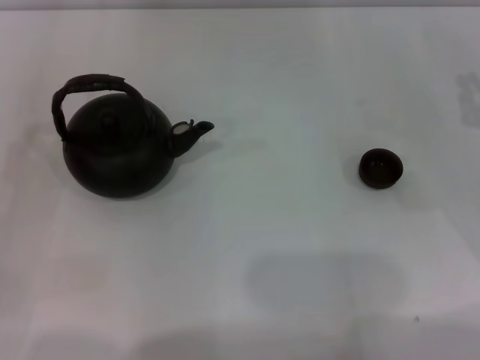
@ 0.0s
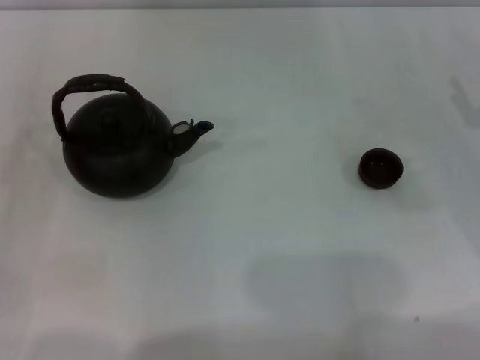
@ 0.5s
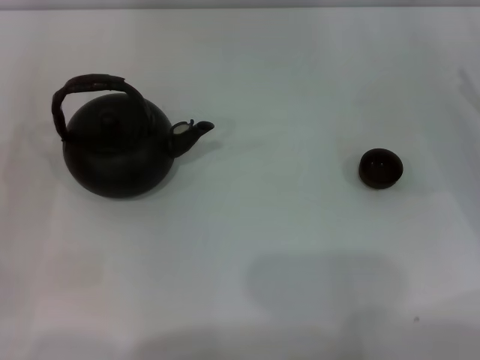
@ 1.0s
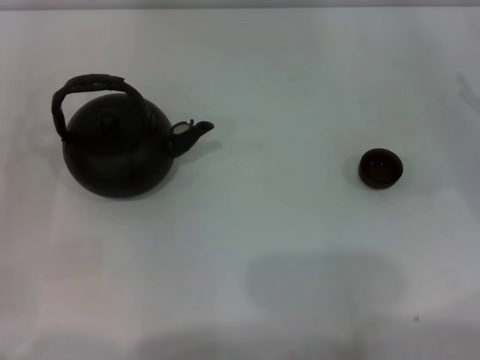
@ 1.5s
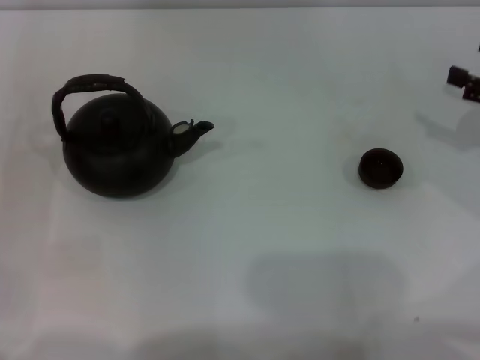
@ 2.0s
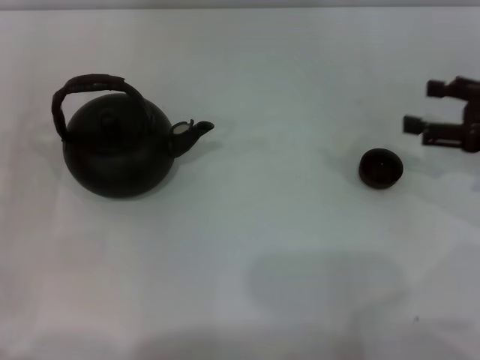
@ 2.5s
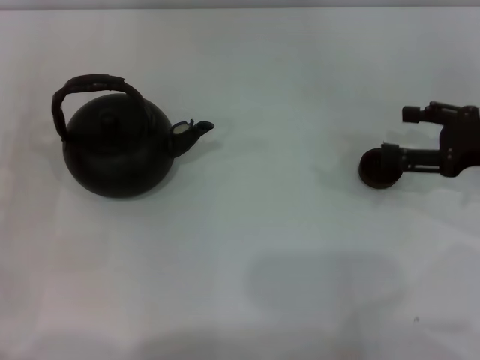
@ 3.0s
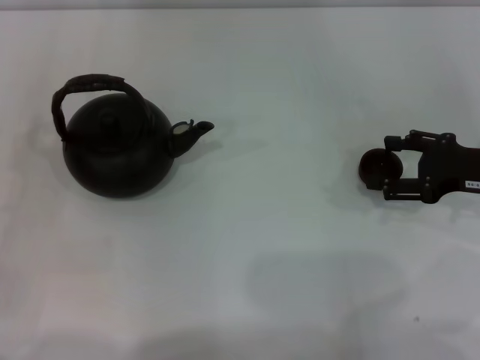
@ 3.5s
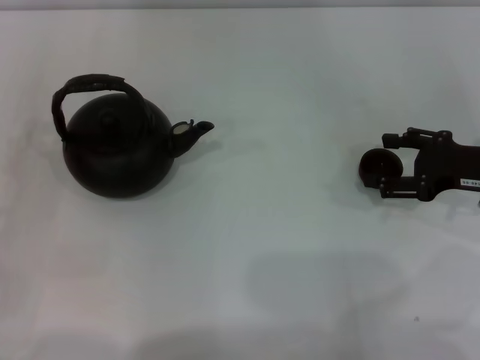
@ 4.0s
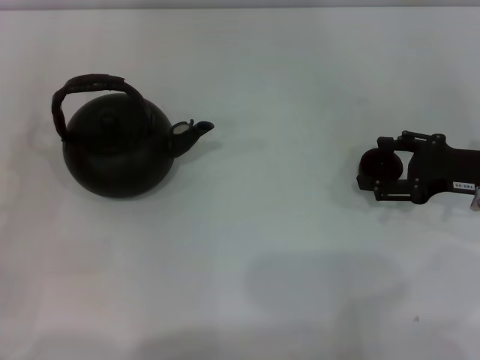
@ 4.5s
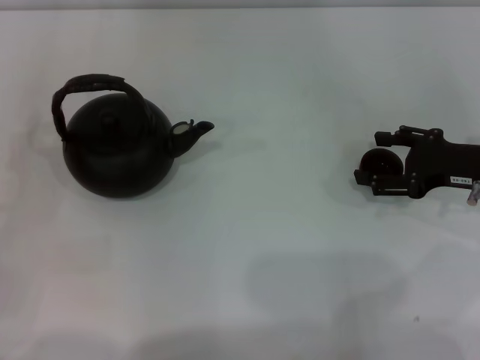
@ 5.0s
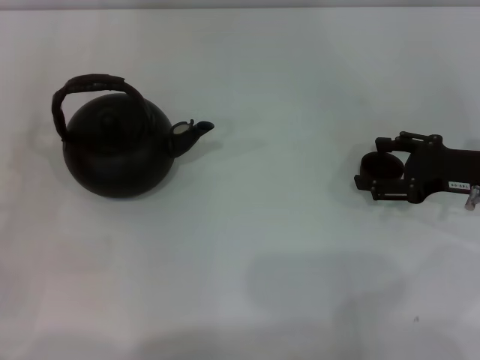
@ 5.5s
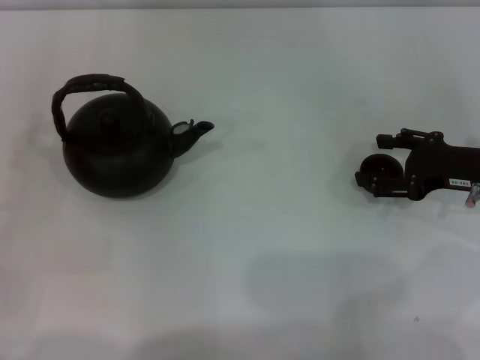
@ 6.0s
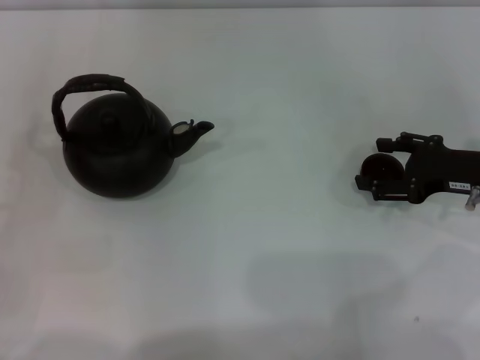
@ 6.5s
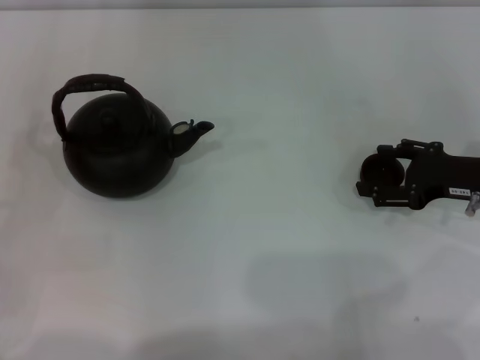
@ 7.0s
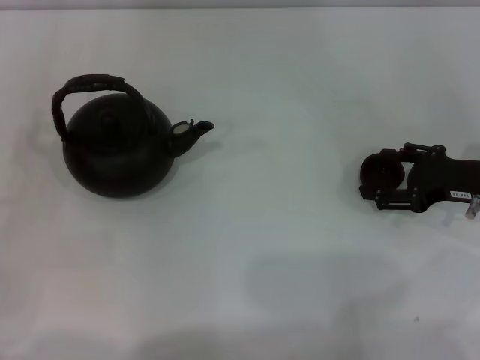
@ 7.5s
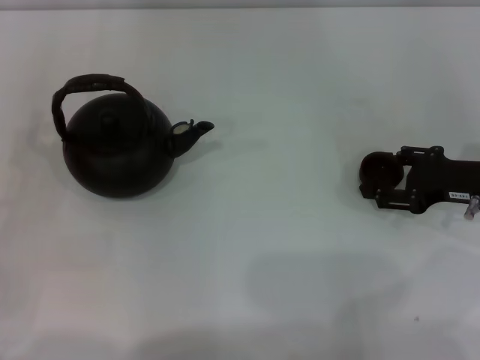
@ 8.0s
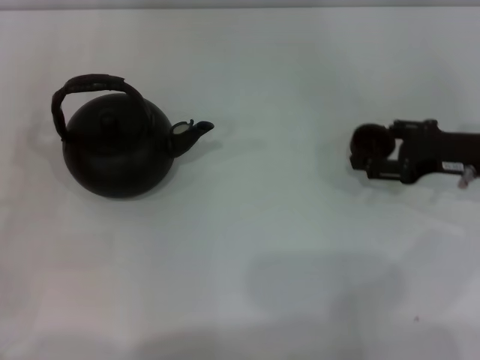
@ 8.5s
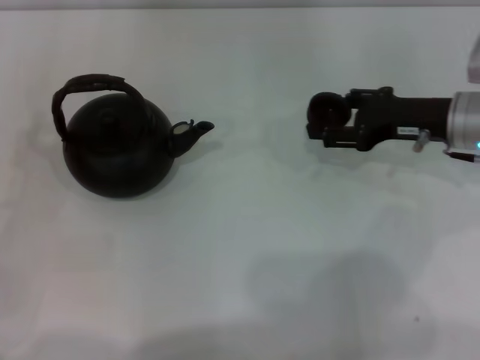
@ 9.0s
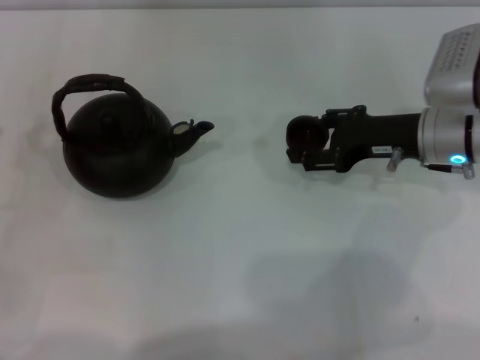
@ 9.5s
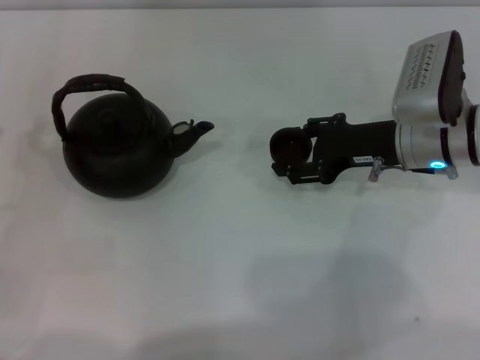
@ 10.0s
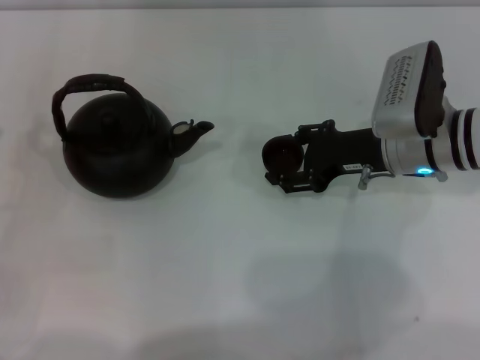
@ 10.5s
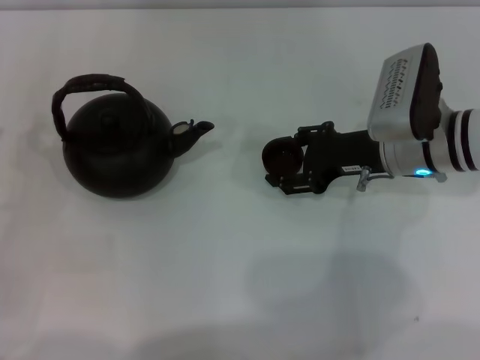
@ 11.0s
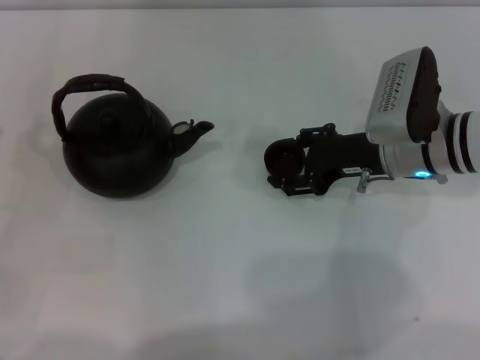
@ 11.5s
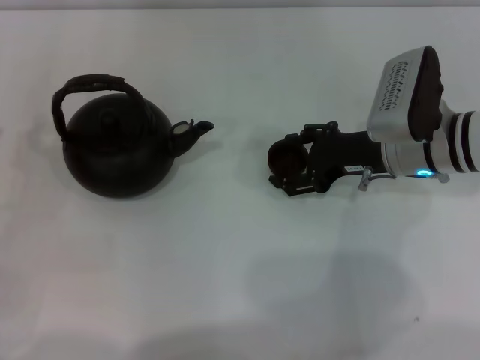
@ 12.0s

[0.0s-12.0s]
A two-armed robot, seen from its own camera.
Task of the whole recording: Grasp the handle of the teapot with one hand and pour tea into the teacup.
Step, 0.0s to 8.0s: Pick up the teacup with the right gripper.
0.0s to 2.0s: The right gripper shifts by about 5 cm, and opens its fingers.
2.0s to 4.0s: The right gripper shifts roughly 5 cm to the left.
4.0s to 6.0s: Neither gripper changes place.
6.0s to 8.0s: Both grippers stay about where they are.
8.0s to 10.0s: The right gripper heads to the left, covering approximately 10 cm.
10.0s to 12.0s: The grippers make only small movements.

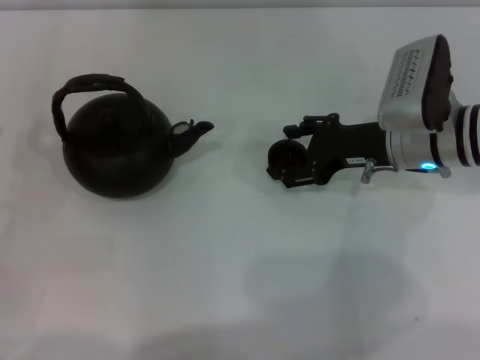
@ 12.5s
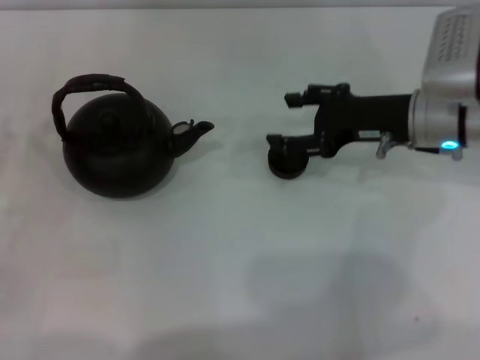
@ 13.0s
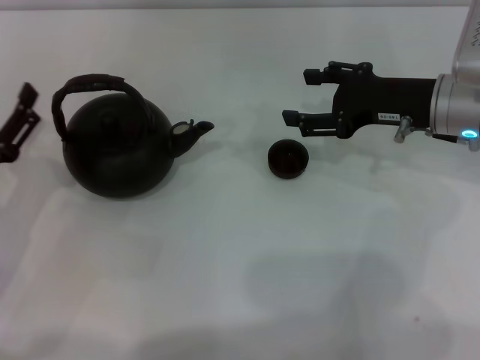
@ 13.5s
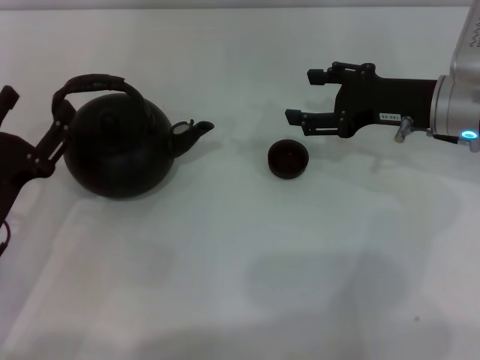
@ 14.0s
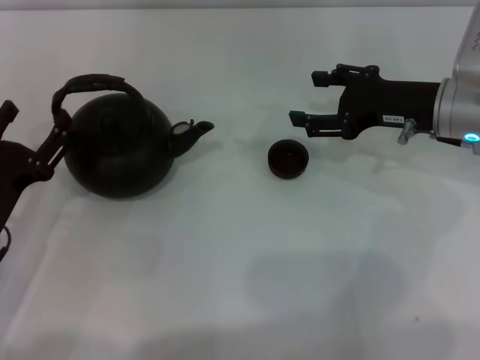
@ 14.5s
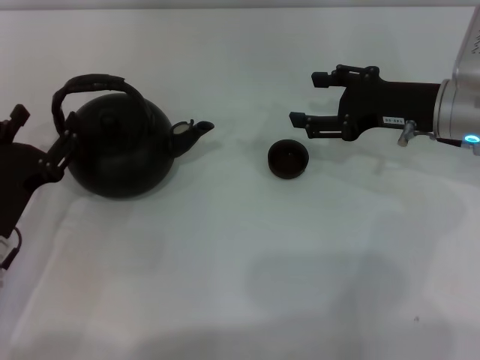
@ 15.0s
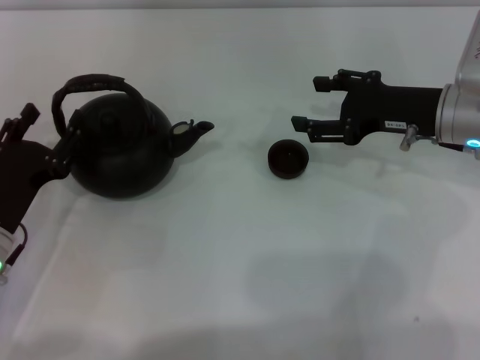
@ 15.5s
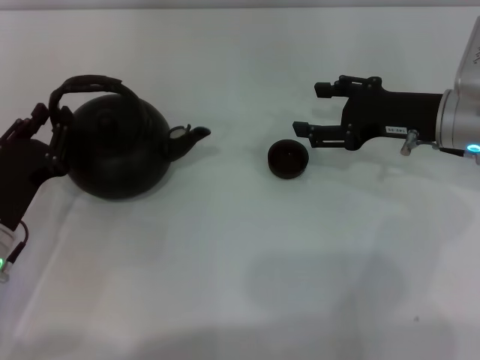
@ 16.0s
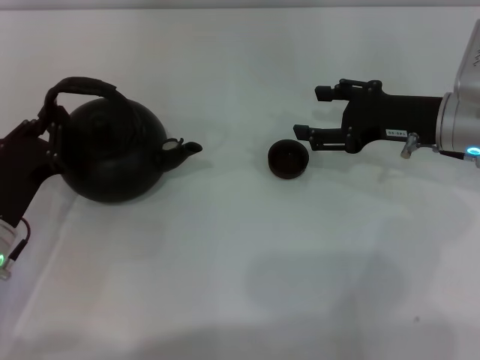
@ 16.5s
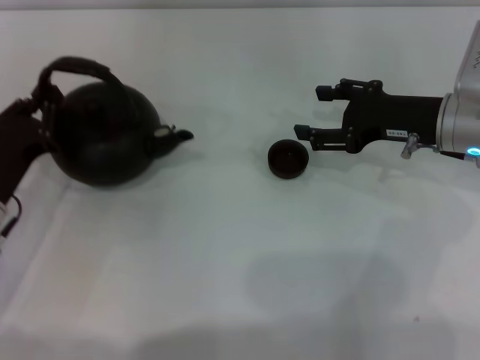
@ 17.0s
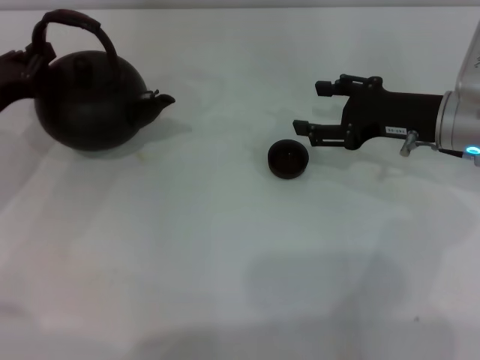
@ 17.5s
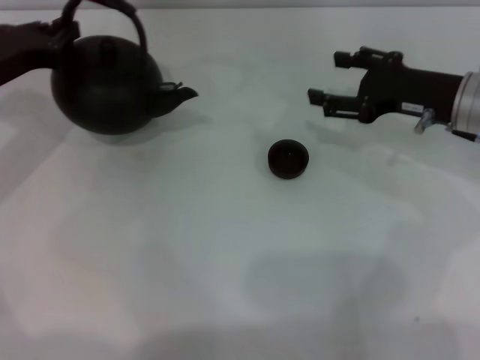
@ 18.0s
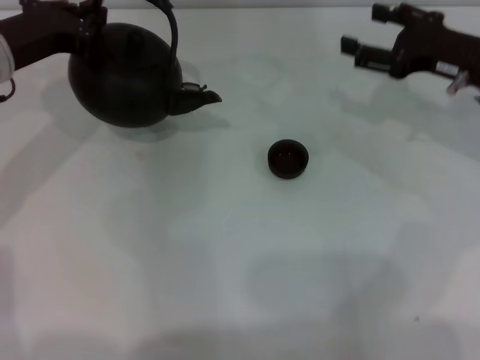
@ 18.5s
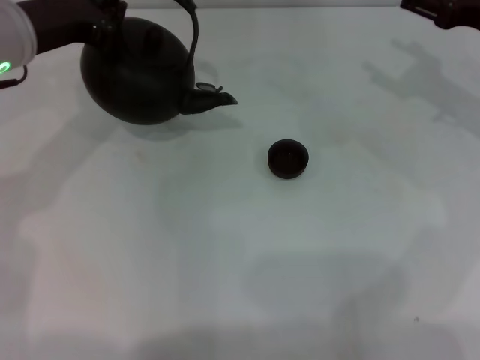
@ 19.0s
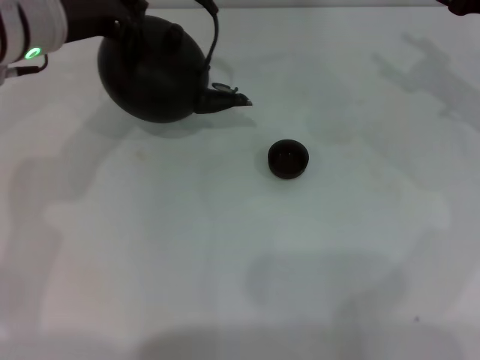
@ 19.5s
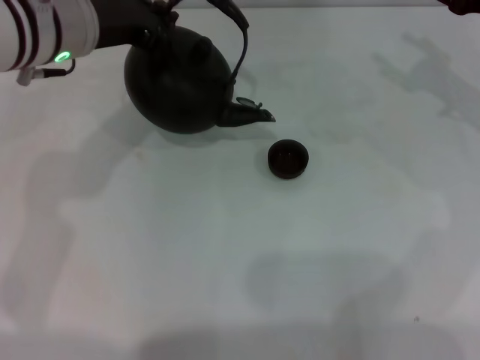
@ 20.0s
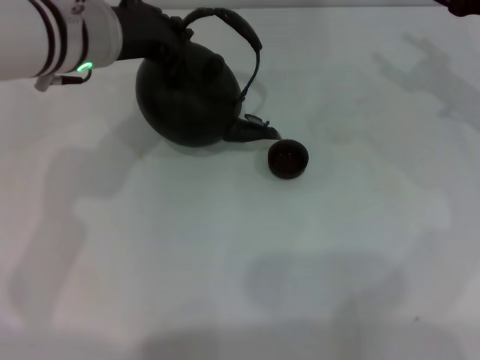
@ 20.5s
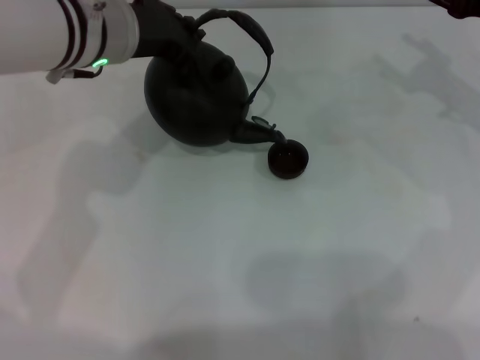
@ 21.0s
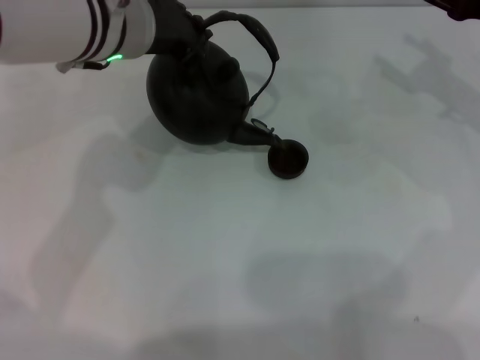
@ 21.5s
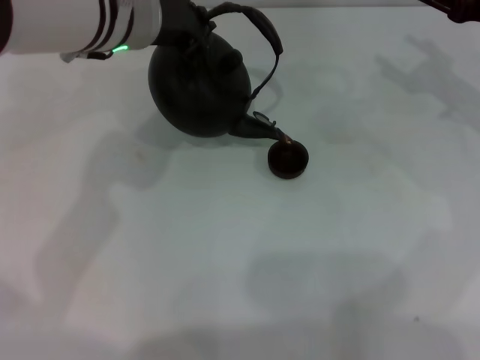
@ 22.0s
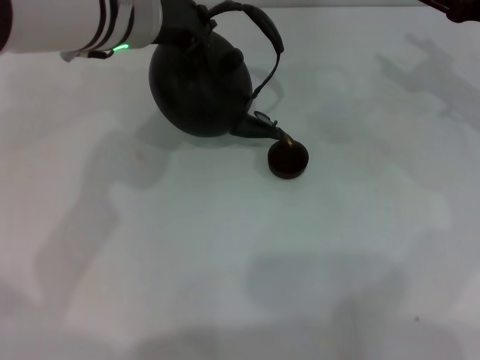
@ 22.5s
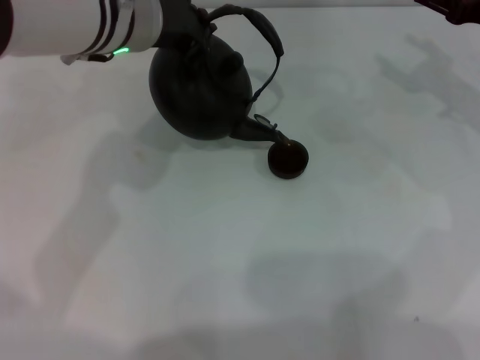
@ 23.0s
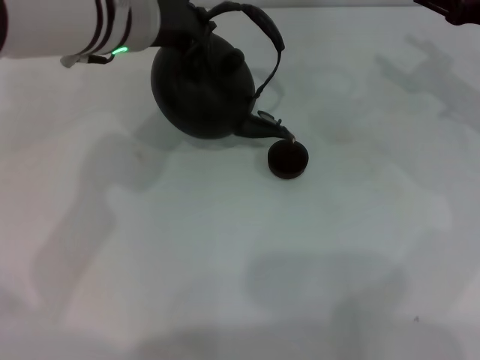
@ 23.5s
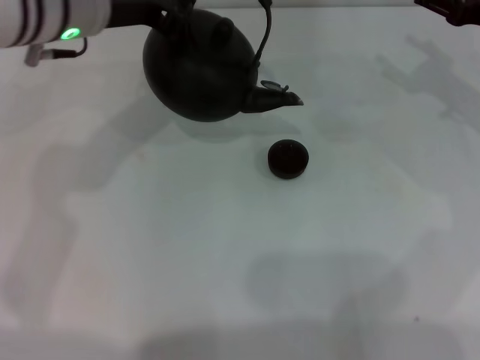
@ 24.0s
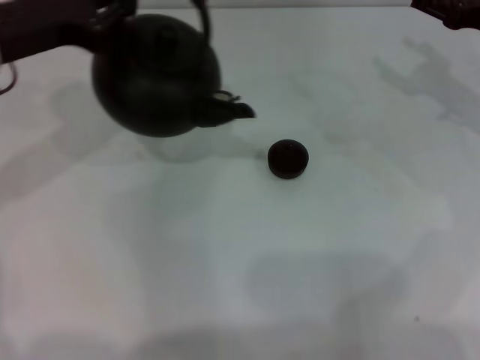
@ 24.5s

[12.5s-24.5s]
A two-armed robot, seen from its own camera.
Task of the whole recording: Grasp the handle of the teapot with one hand and pour tea into the teacup.
Step, 13.0s to 17.0s: Pick up the teapot with the left gripper.
Step, 17.5s to 23.5s: Pour tea into the teacup with the left gripper.
12.5s to 14.5s: The left gripper shifts some 10 cm to the right.
14.5s to 16.5s: The left gripper closes its fingers.
16.5s to 18.5s: The left gripper shifts about 20 cm upward and forward. Meanwhile the right gripper changes place by roughly 5 cm.
18.5s to 20.5s: The left gripper moves to the right, approximately 10 cm.
20.5s to 22.5s: The grippers make only small movements.
22.5s to 24.5s: The left gripper travels to the left by roughly 15 cm.

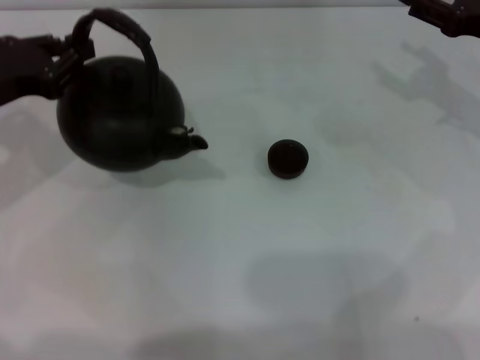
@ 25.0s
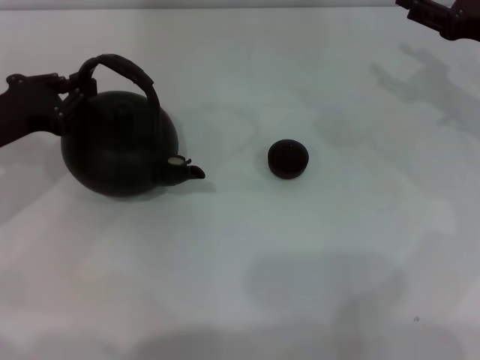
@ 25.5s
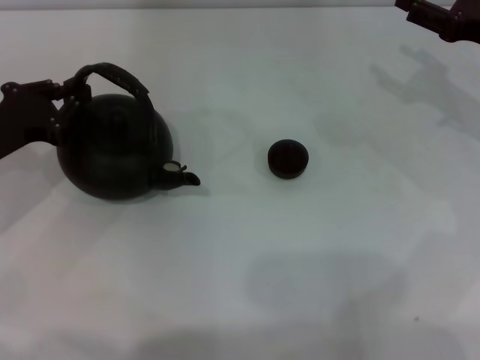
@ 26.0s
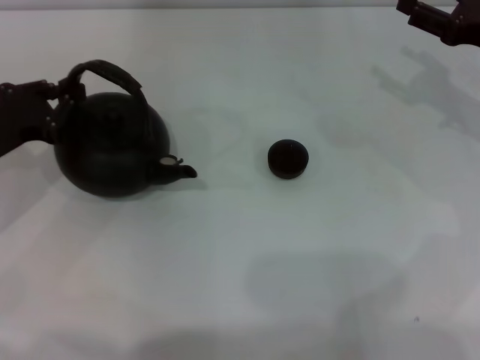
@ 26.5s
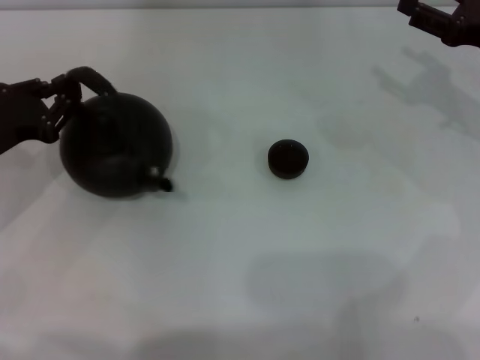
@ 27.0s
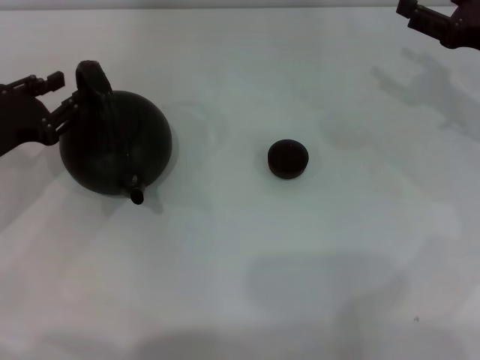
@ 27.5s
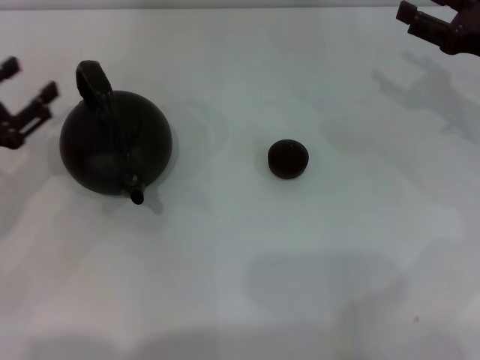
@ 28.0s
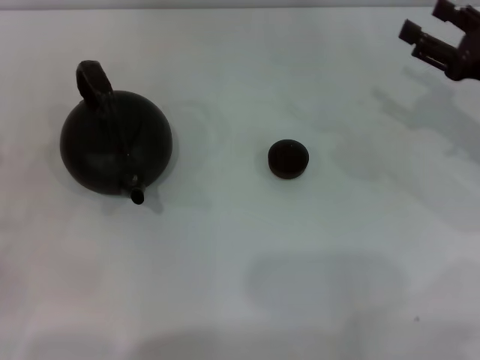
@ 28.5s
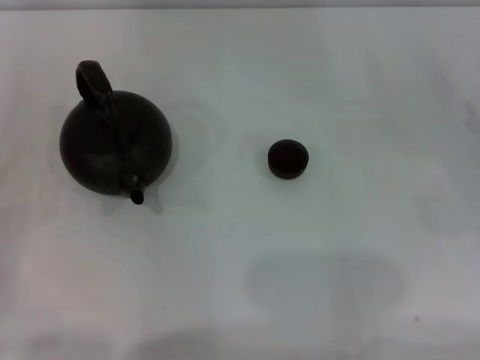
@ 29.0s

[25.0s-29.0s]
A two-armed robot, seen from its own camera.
Task of the whole recording: Grasp the handle of the teapot with one hand and pour tea into the teacup.
Step, 25.0s to 28.0s: Put down the teapot with the left gripper.
25.0s to 27.0s: The left gripper moves downward, some 5 cm.
27.0s to 29.0s: The right gripper travels backward and downward by roughly 15 cm. Meanwhile the left gripper moves backward and to the left, approximately 20 cm, and opens up.
